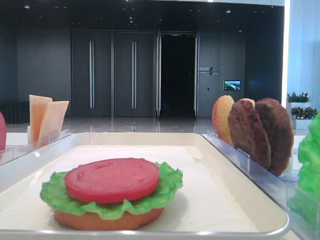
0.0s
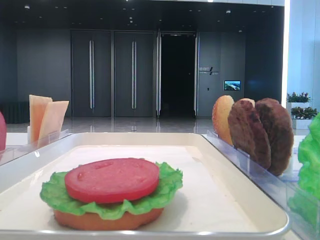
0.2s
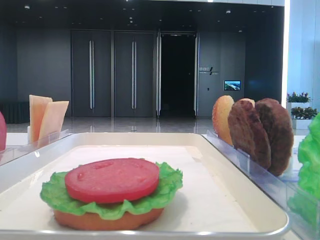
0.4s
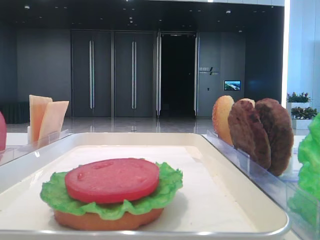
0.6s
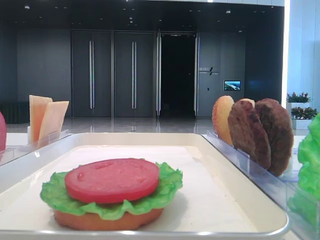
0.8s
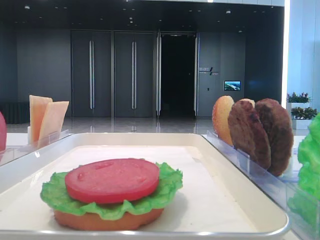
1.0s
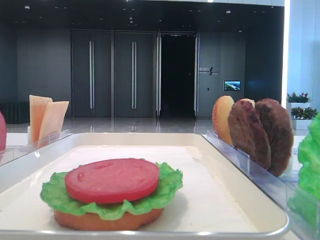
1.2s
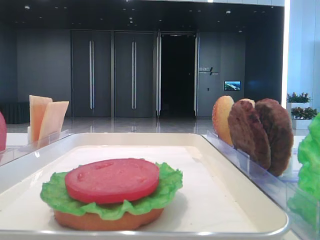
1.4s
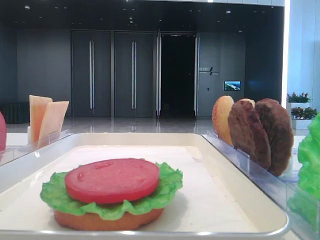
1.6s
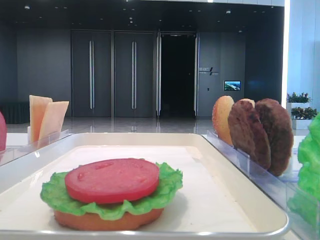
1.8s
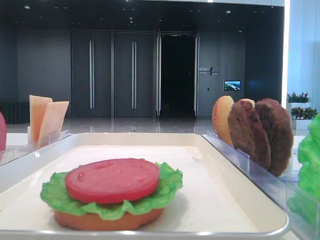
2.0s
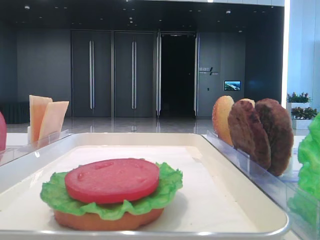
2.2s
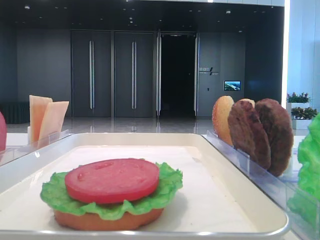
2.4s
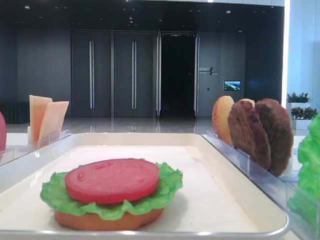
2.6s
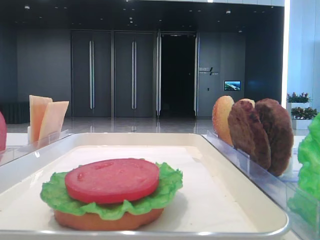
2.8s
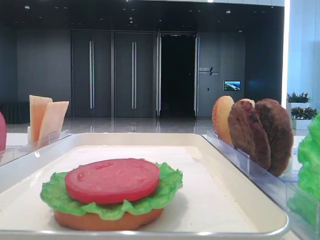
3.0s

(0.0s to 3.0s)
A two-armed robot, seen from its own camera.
1.6s - 3.0s: Both grippers stay put.

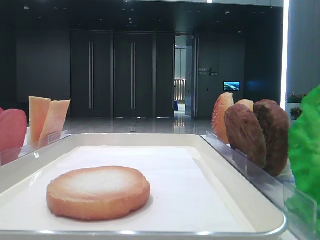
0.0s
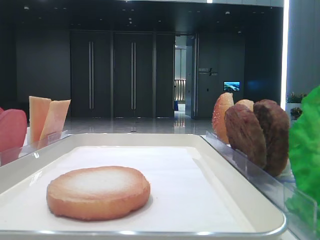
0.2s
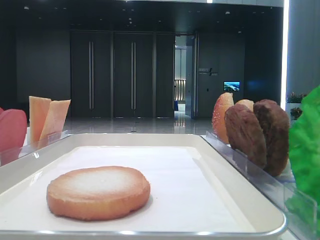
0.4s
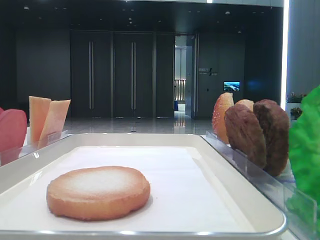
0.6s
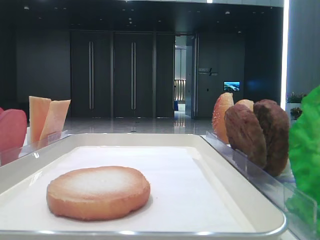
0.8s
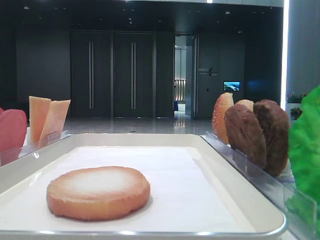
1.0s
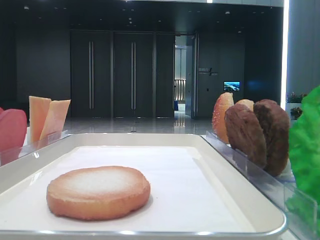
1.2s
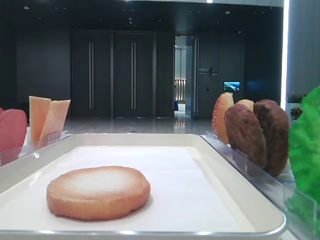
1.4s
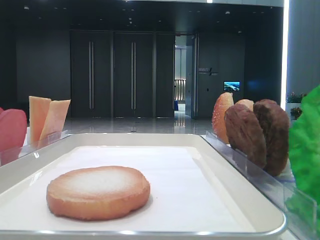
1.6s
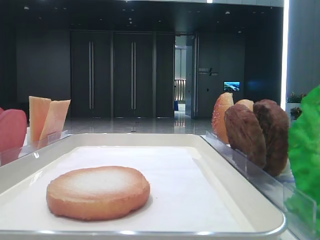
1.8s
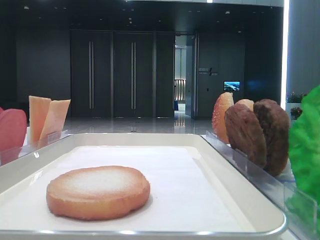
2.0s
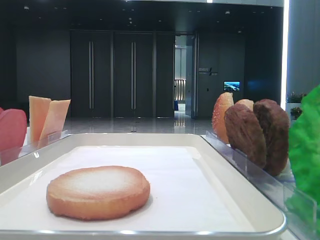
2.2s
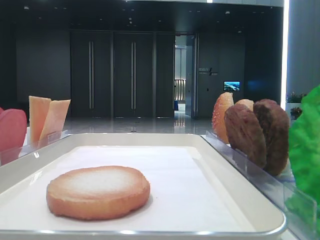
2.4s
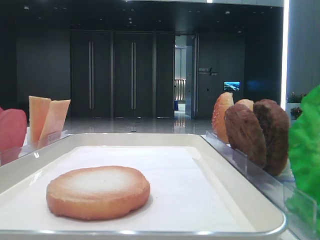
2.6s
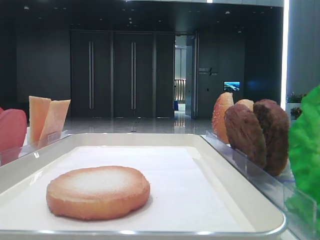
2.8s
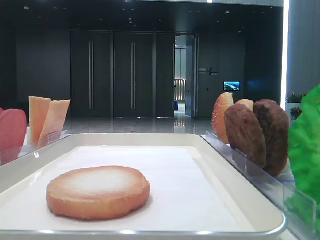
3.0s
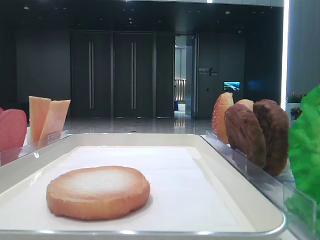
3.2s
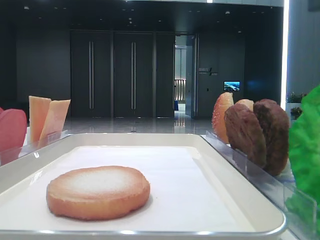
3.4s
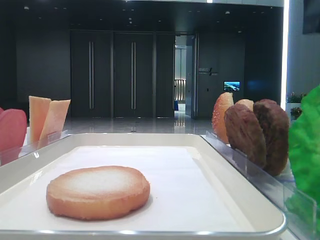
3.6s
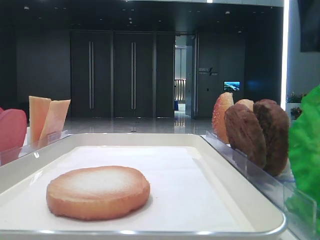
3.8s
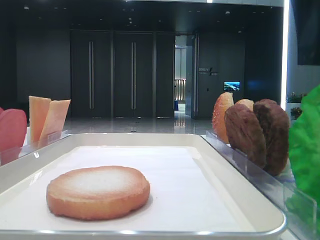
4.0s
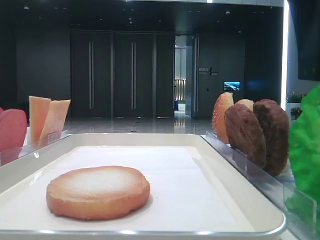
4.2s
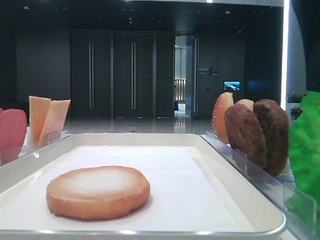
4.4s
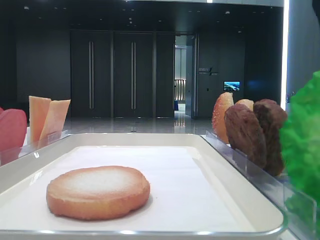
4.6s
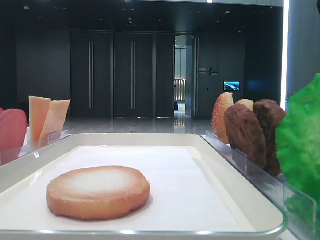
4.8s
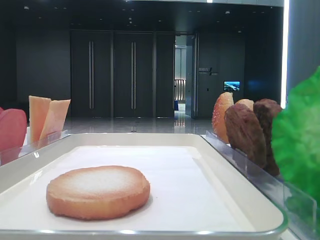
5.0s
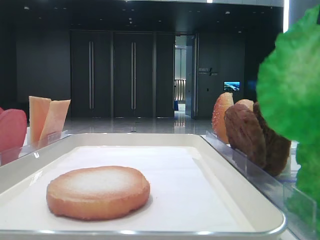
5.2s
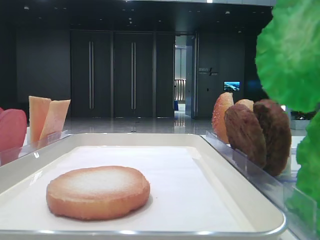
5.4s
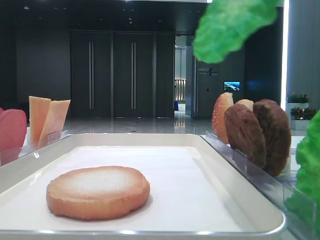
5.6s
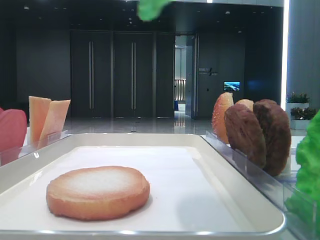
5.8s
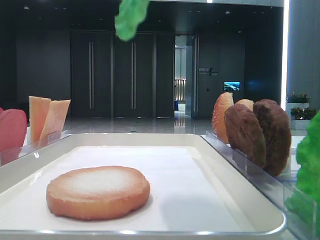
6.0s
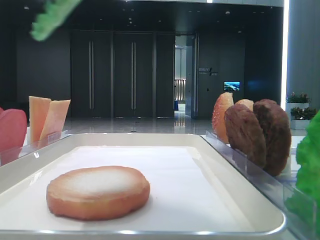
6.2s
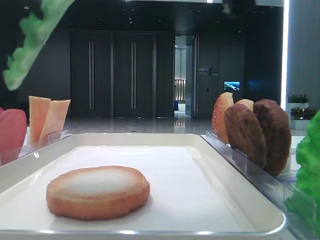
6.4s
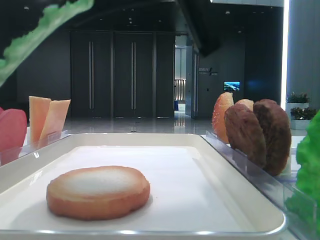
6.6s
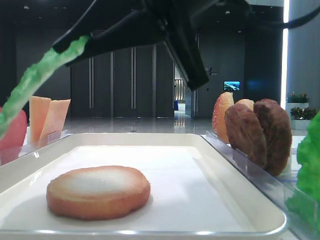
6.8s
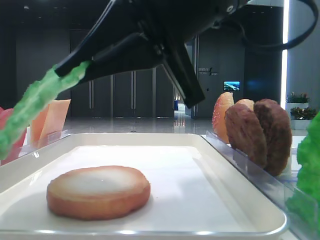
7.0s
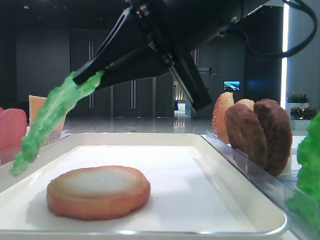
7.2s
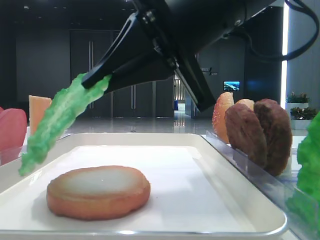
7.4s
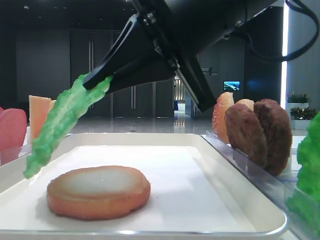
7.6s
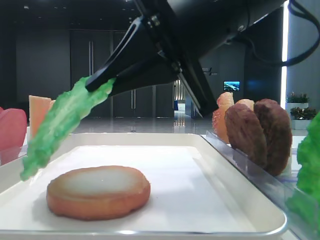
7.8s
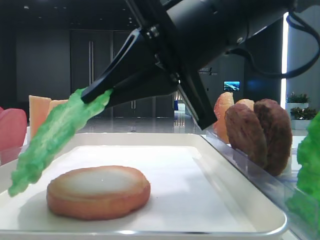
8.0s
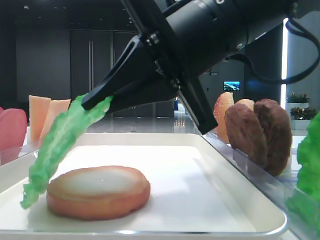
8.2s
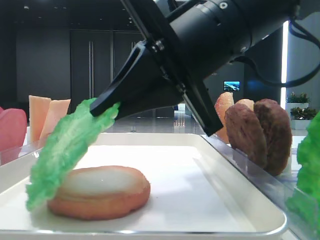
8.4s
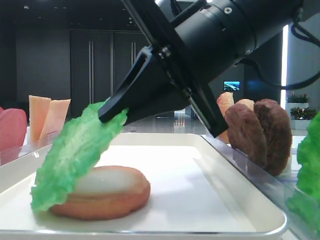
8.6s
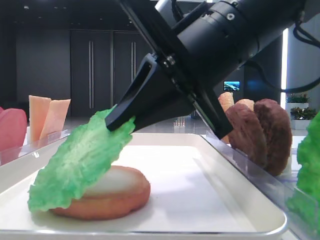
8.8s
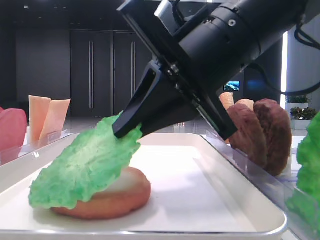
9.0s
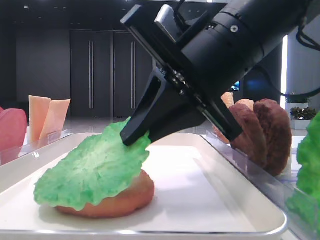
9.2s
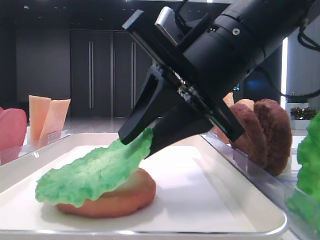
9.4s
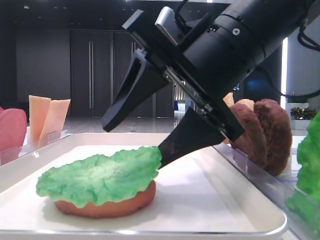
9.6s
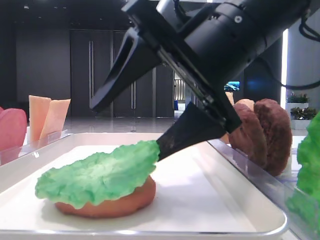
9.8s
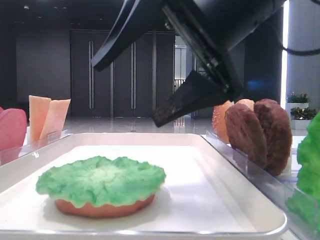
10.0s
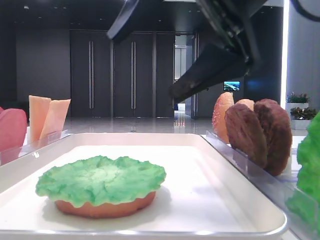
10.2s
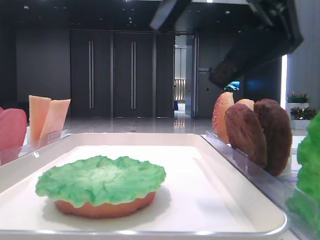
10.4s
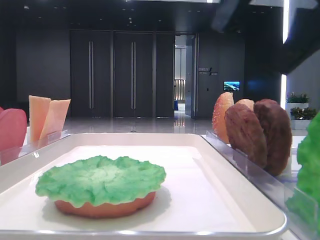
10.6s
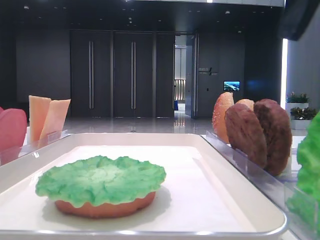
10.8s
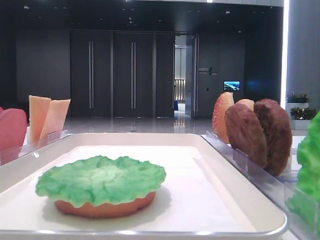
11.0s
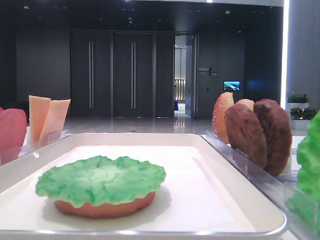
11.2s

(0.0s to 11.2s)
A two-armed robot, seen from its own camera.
Step, 0.0s - 4.6s: Grab the lettuce leaf with the right hand.
Step, 4.8s - 10.0s: Place the lettuce leaf on the bottom bread with the right hand.
3.2s - 4.8s: The right gripper goes some 5 cm downward, and closes its fingers.
4.8s - 6.4s: The right gripper heads to the left, covering some 10 cm.
6.4s - 8.0s: The right gripper is displaced downward and forward by roughly 10 cm.
8.0s - 9.6s: The right gripper opens up.
9.6s - 11.2s: The right gripper shifts some 25 cm to the right and upward.

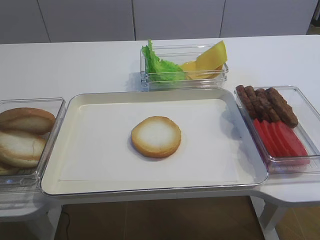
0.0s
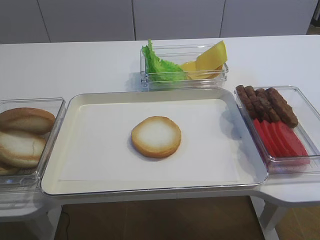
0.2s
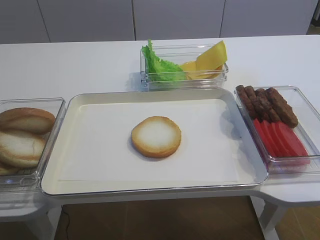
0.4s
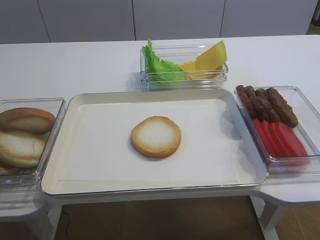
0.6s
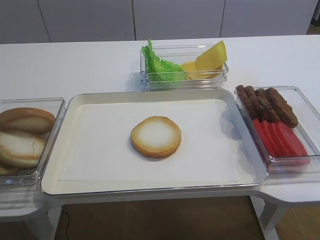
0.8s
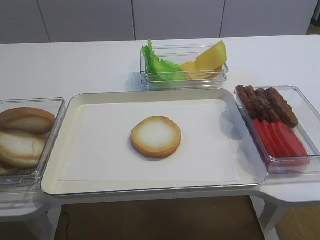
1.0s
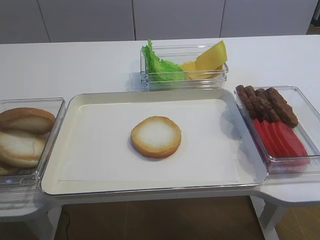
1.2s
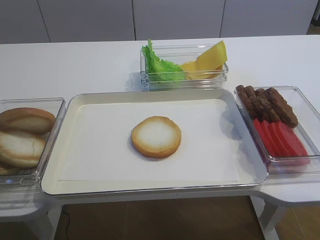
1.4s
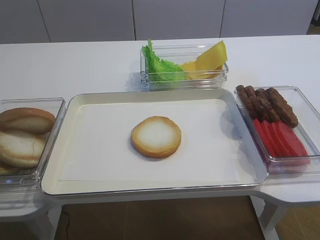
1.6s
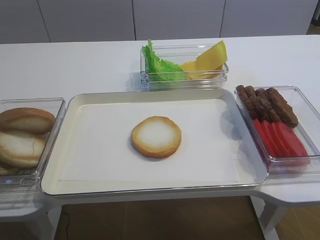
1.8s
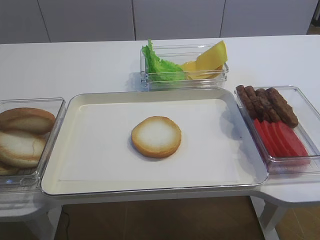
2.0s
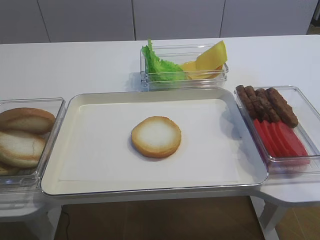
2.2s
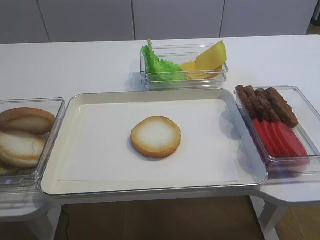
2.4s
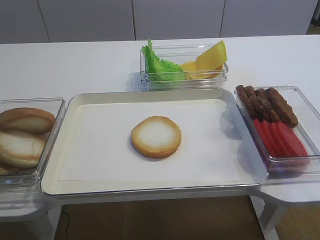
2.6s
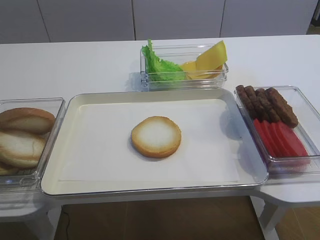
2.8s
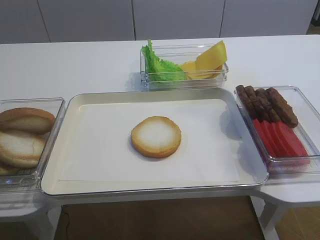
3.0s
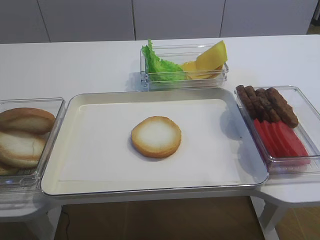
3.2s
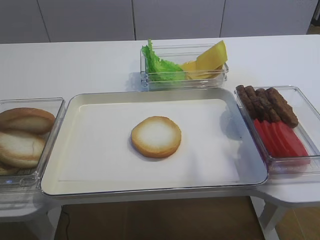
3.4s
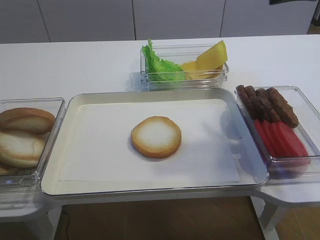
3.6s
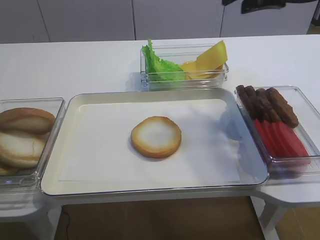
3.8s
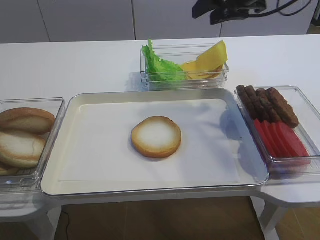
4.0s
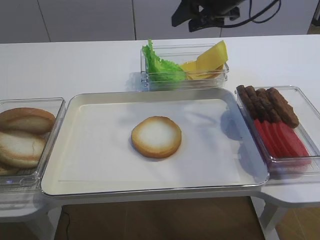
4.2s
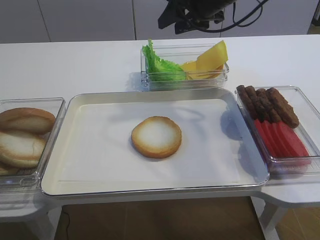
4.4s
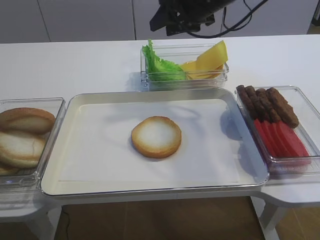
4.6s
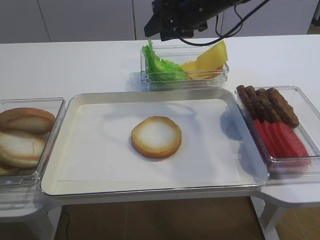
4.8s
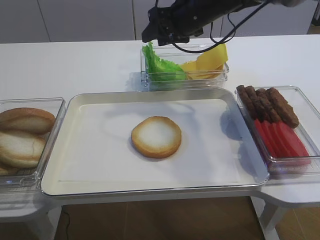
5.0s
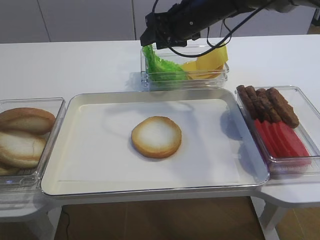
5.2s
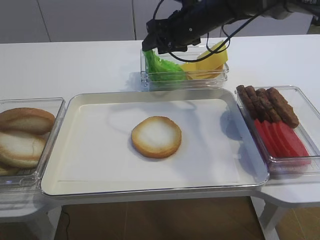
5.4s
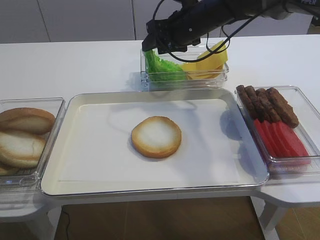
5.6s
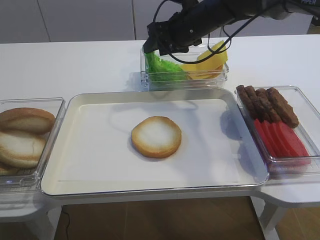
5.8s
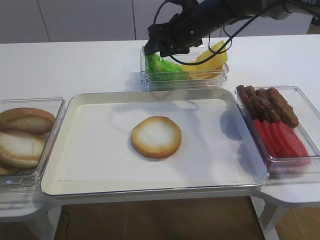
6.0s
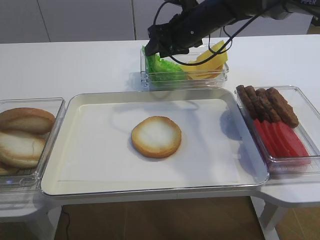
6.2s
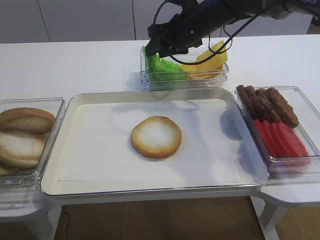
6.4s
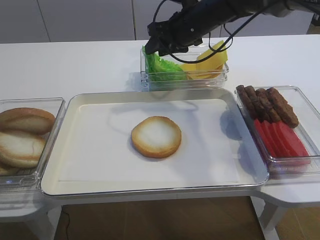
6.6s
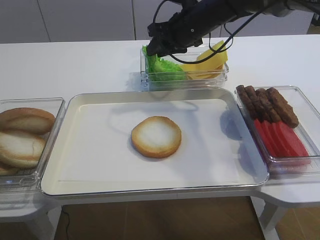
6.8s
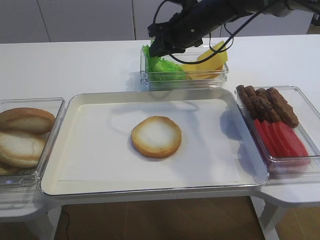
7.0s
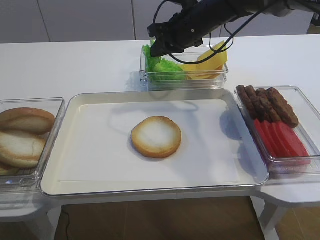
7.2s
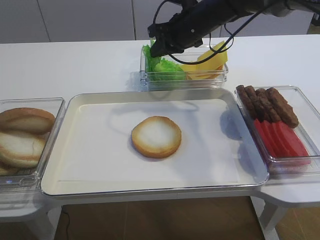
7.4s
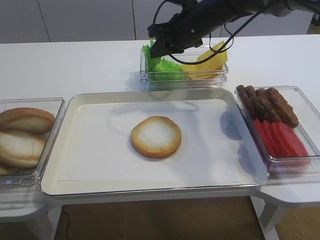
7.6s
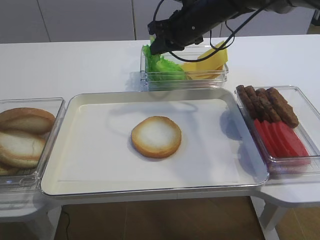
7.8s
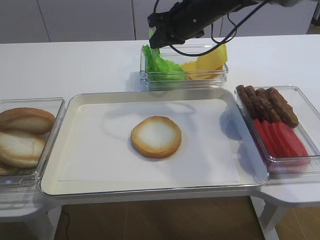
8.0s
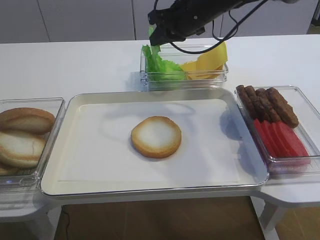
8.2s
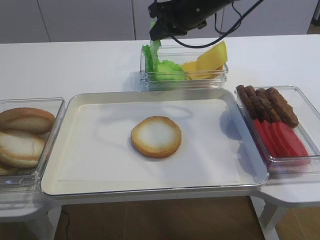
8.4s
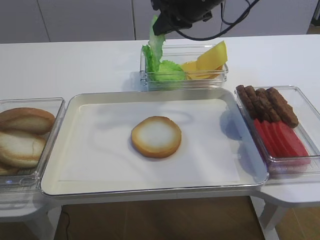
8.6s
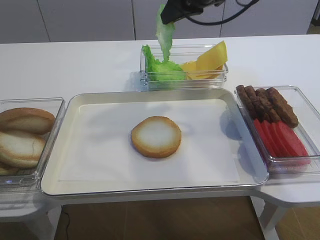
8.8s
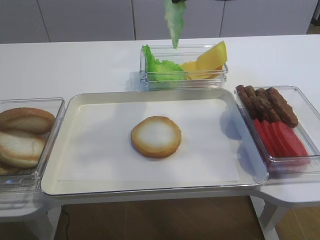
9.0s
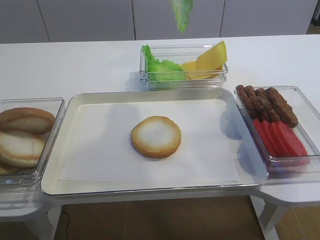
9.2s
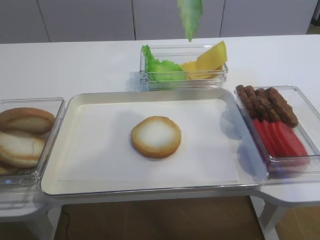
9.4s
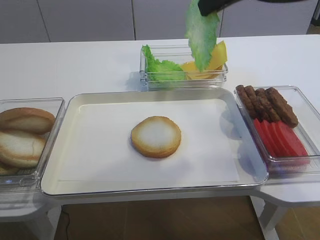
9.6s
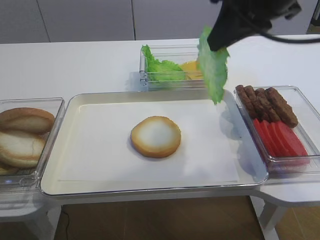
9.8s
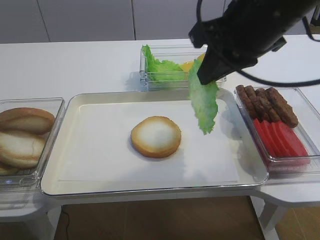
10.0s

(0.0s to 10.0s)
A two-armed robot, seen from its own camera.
Step, 0.0s - 8.4s: Pick up the lettuce leaf with the right gripper.
1.4s - 2.8s: The right gripper travels upward and forward by some 15 cm, and opens its fingers.
2.8s - 4.2s: The right gripper travels forward by some 35 cm.
4.2s - 5.8s: The right gripper is displaced downward and to the left by roughly 10 cm.
5.8s - 7.2s: The right gripper closes up.
7.2s - 8.6s: The right gripper travels upward by about 5 cm.
8.6s - 10.0s: The right gripper heads backward, covering some 20 cm.
